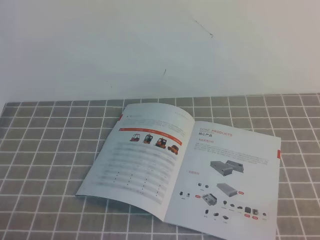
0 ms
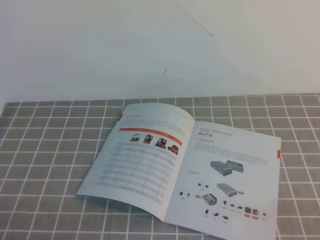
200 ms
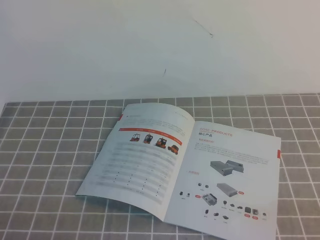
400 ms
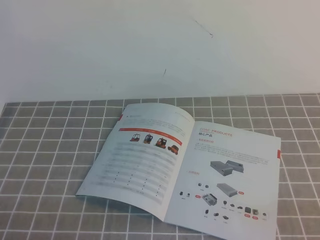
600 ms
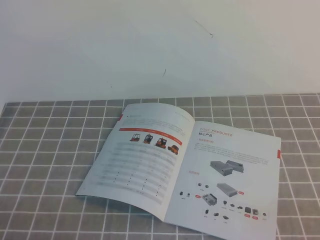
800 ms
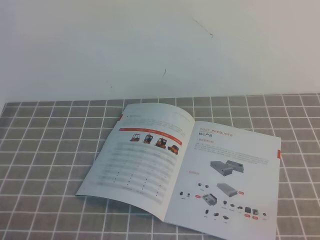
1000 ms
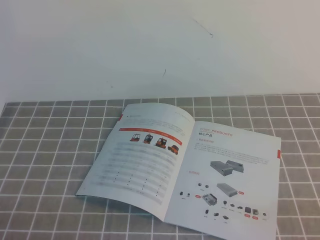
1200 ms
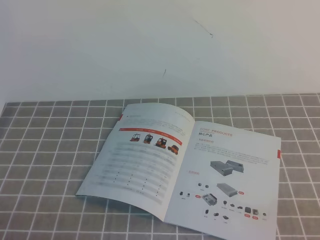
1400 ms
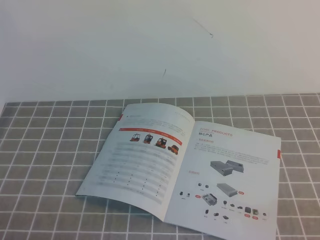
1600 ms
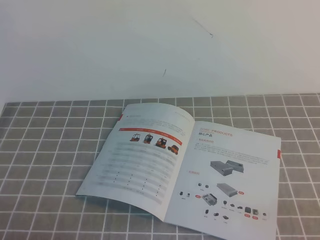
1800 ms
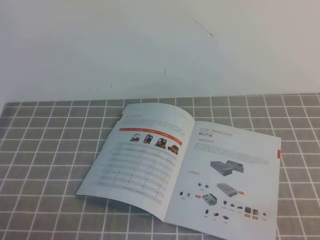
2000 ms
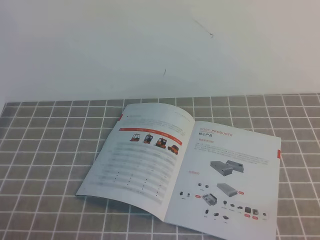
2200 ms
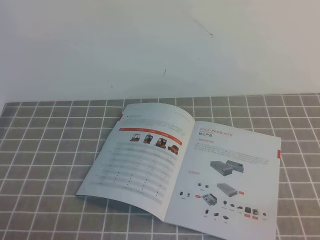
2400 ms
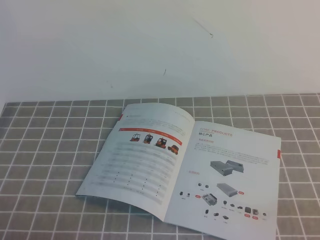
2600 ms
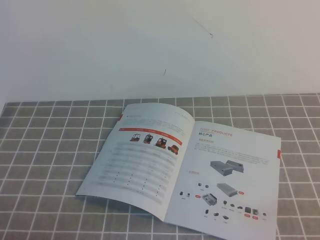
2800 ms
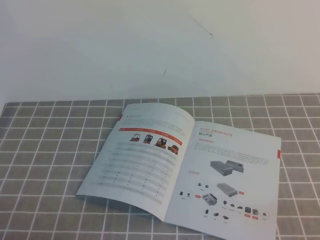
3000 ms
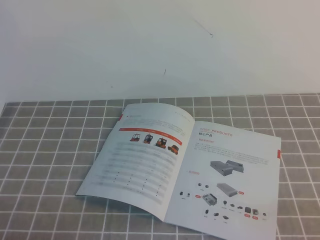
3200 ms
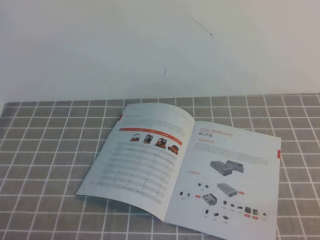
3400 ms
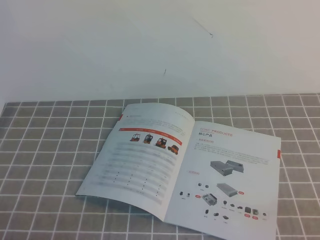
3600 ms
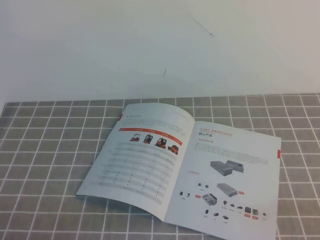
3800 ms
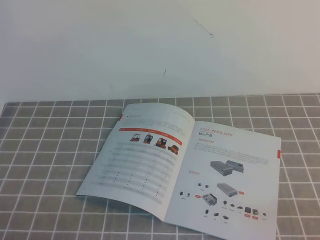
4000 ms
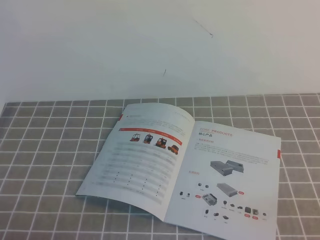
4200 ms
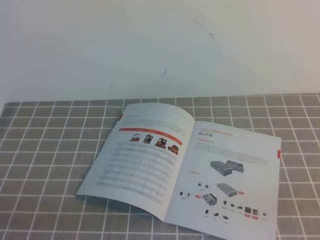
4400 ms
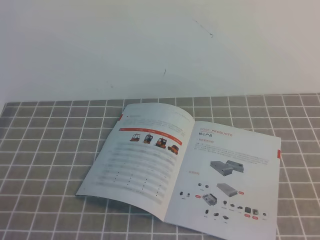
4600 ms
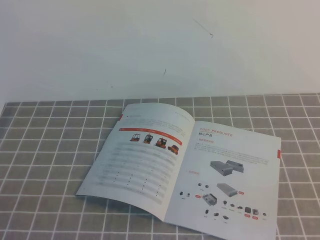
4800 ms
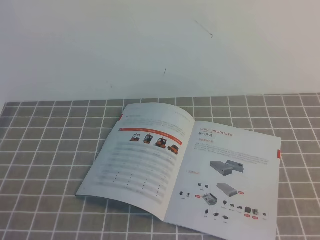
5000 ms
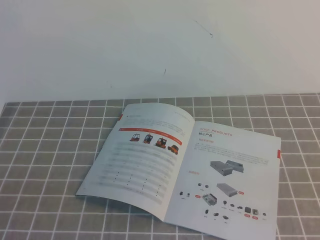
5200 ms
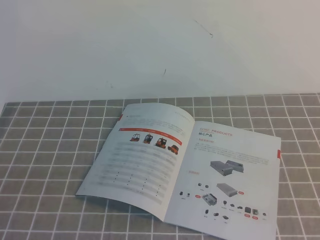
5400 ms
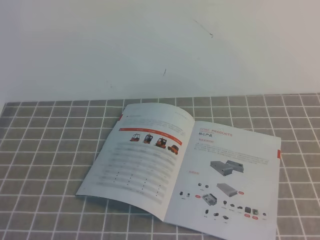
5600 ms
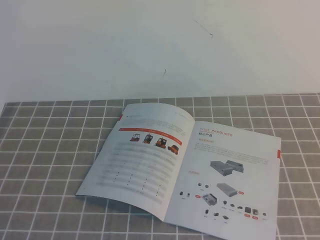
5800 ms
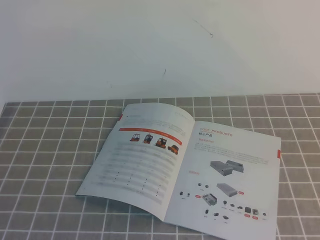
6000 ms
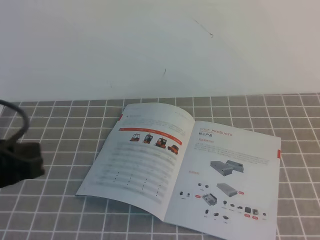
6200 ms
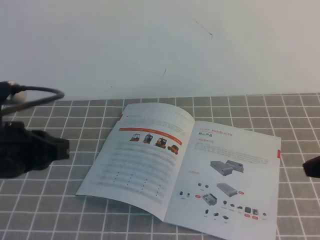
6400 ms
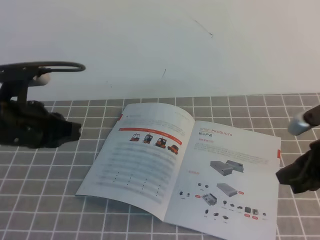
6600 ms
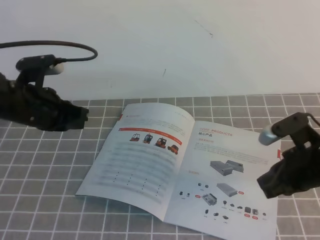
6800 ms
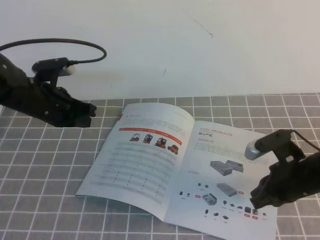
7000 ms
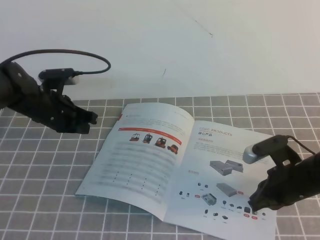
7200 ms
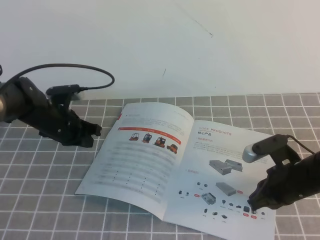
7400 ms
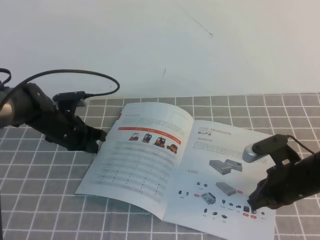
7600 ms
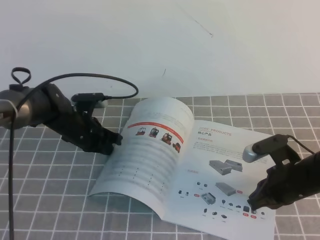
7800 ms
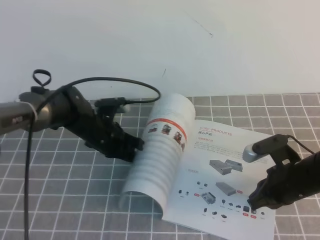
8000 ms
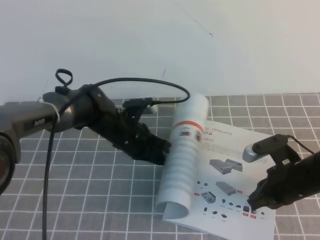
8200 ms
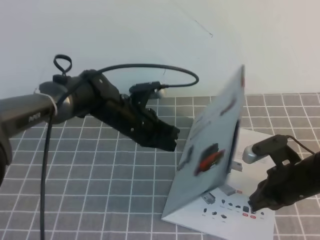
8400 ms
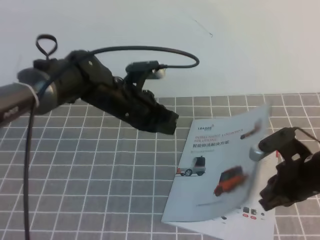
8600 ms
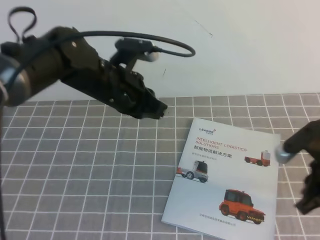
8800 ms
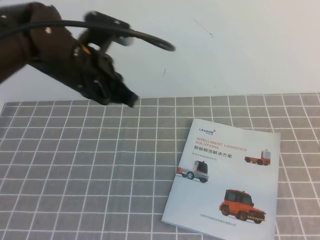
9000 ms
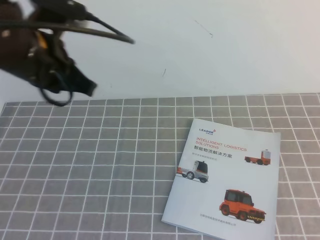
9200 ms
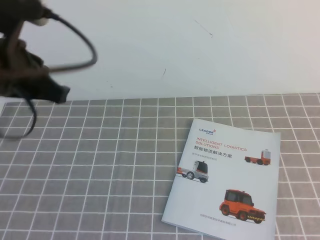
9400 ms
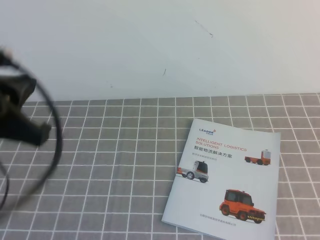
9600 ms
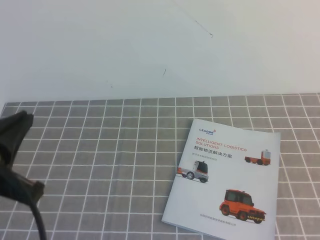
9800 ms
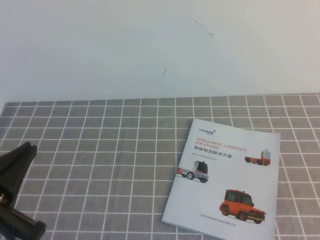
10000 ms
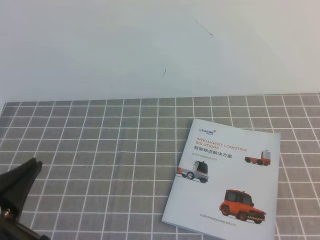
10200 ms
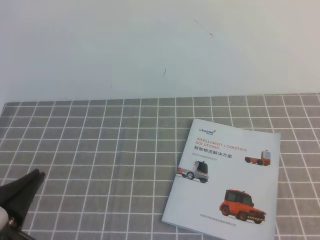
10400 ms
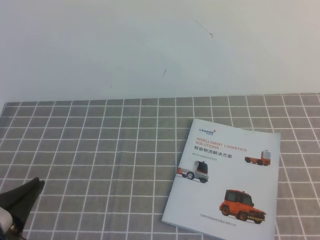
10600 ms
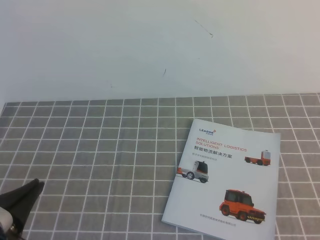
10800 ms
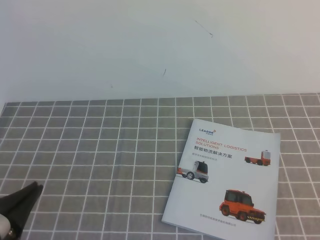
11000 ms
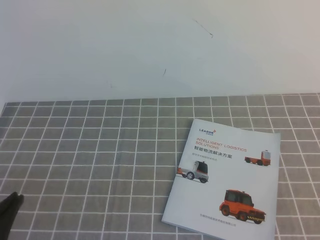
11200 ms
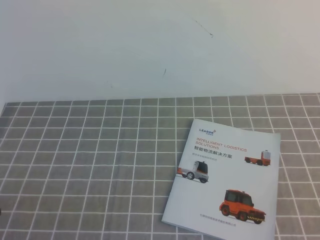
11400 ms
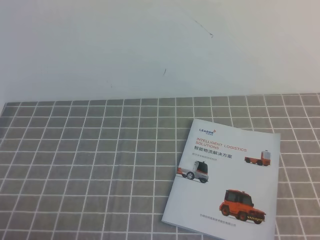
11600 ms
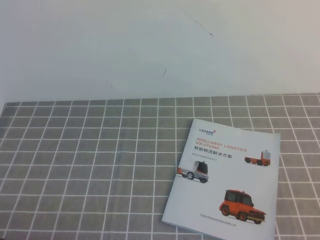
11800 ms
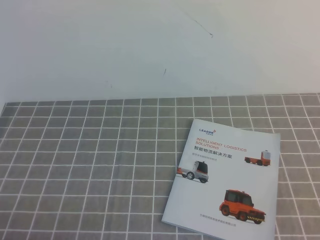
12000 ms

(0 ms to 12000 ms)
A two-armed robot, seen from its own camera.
Task of the whole recording: on the grey tablecloth, hold the book with one hand and close it with the other.
0 ms - 1600 ms: The two grippers keep their place.
6000 ms - 7600 ms: The left gripper shifts approximately 40 cm forward and downward. Meanwhile the right gripper goes some 30 cm downward and forward.
7600 ms - 9000 ms: The left gripper travels upward, backward and to the right by some 20 cm; the right gripper is displaced upward, to the right and backward by about 15 cm.
9000 ms - 10400 ms: The left gripper is displaced backward and to the left by roughly 25 cm; the right gripper heads backward, covering approximately 15 cm.
10400 ms - 12000 ms: The left gripper moves downward and backward, some 10 cm.

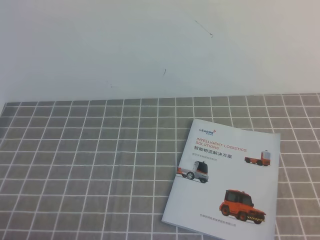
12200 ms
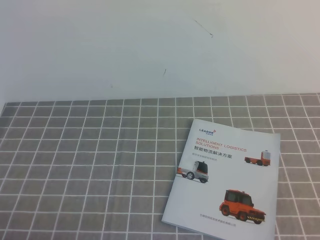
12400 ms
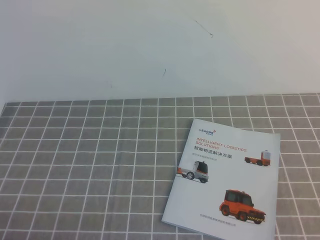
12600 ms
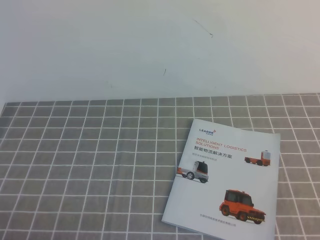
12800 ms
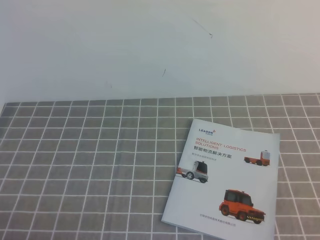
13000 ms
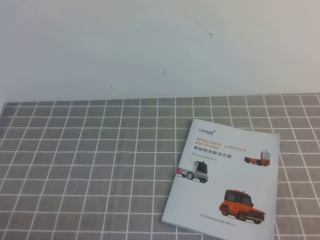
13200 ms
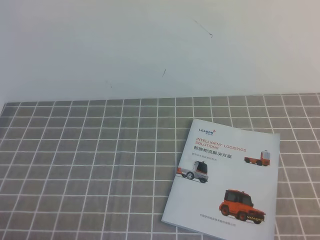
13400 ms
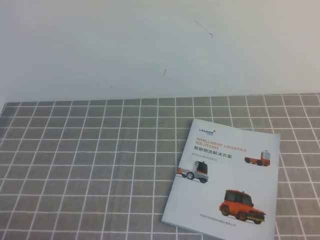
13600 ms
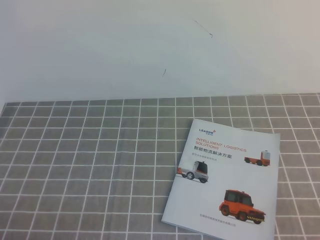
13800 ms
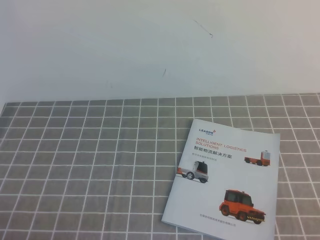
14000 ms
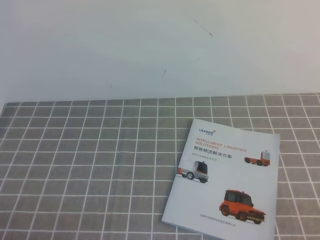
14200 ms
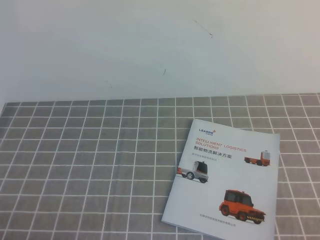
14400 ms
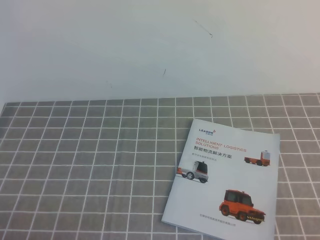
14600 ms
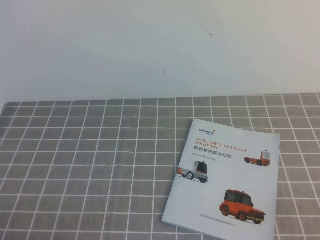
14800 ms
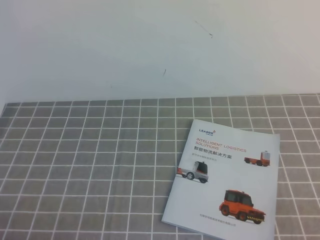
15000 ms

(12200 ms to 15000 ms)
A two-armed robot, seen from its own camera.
Task of the whole recording: on the grey tablecloth, hold the book with one hand and close it with the other.
13600 ms - 15000 ms: Both grippers stay about where they are.
